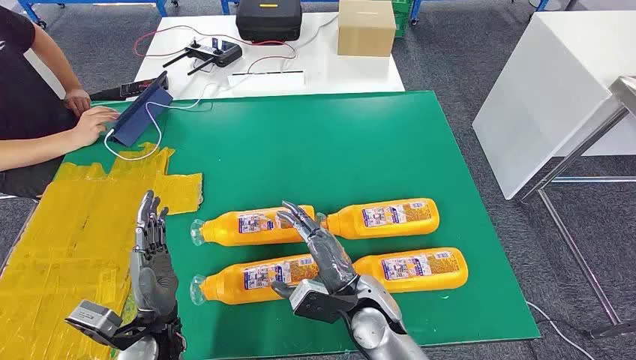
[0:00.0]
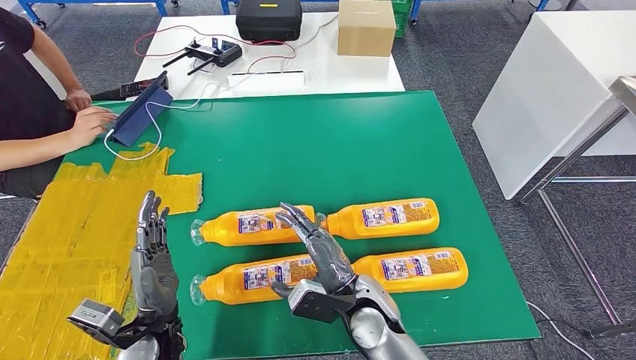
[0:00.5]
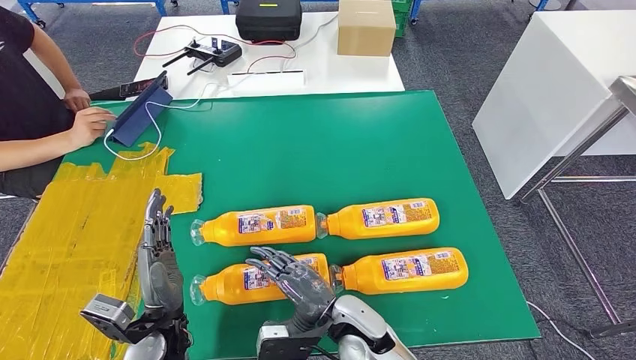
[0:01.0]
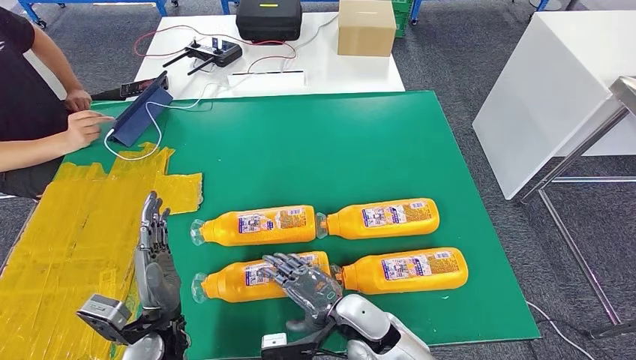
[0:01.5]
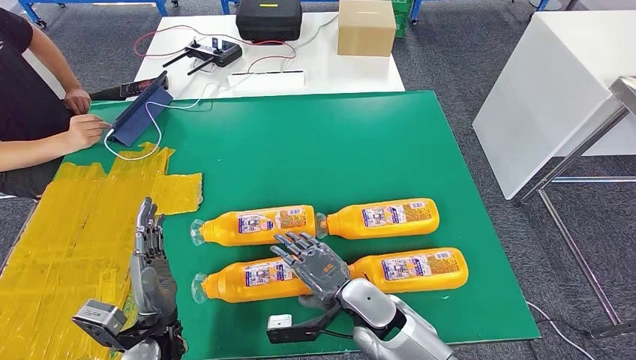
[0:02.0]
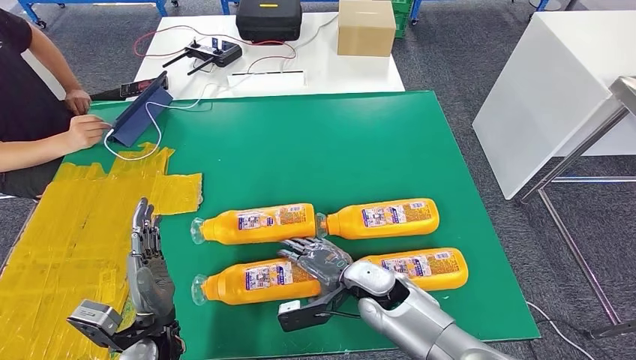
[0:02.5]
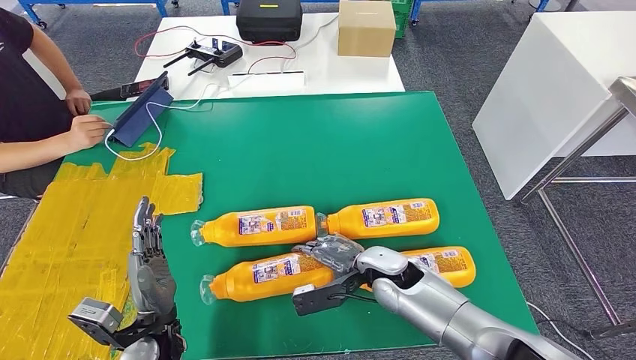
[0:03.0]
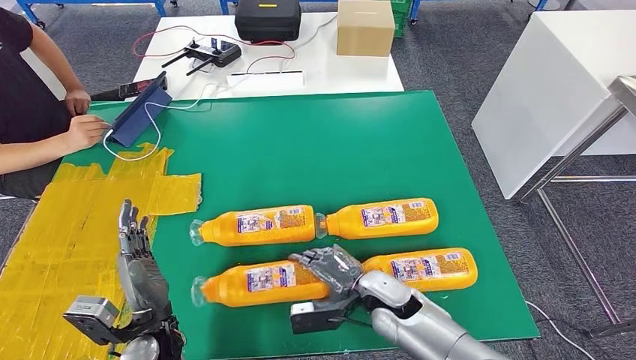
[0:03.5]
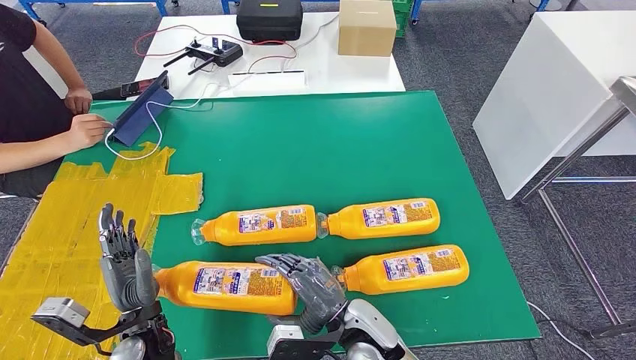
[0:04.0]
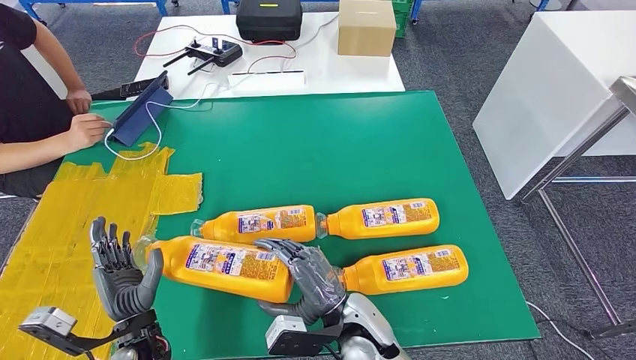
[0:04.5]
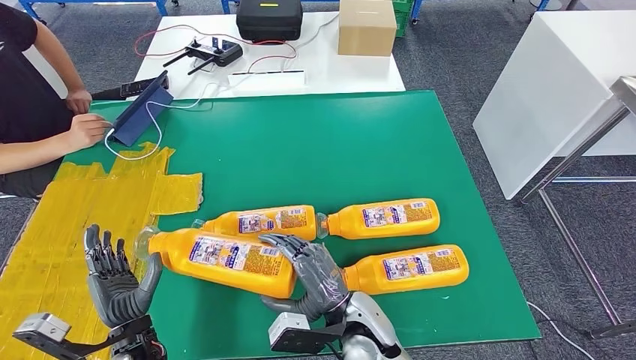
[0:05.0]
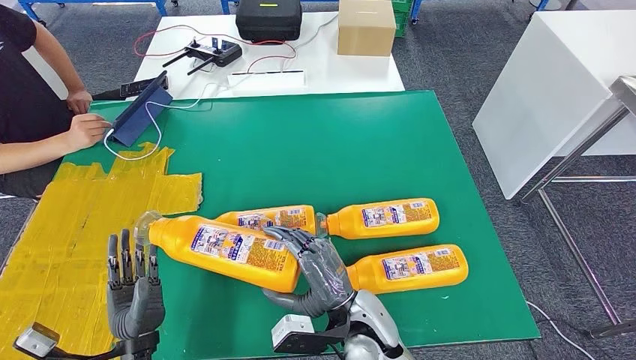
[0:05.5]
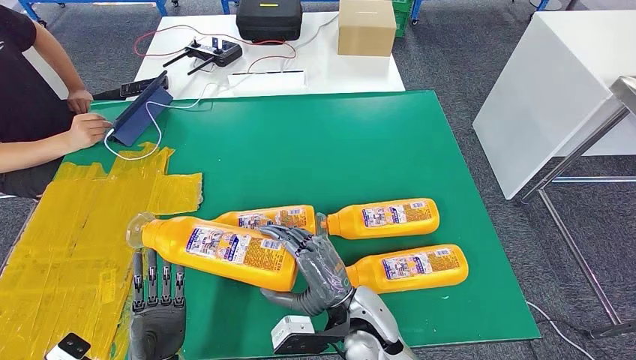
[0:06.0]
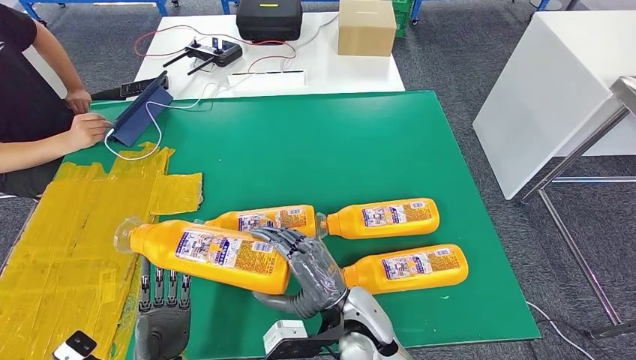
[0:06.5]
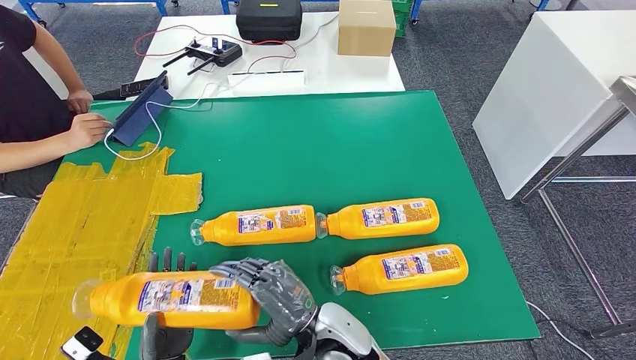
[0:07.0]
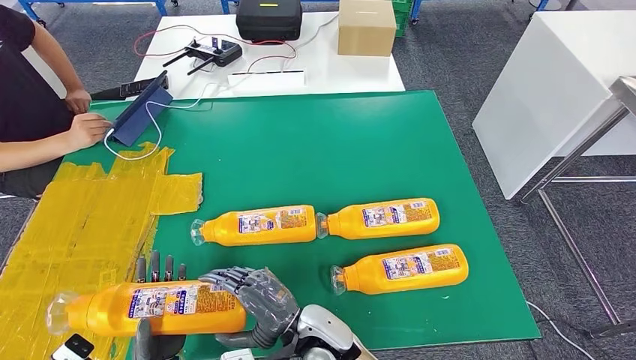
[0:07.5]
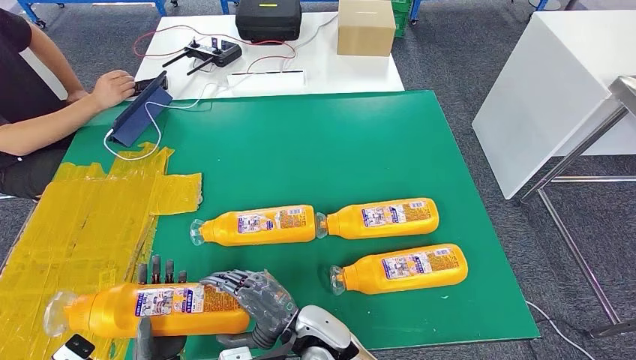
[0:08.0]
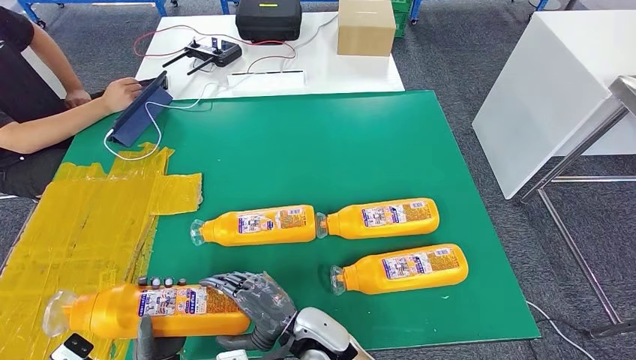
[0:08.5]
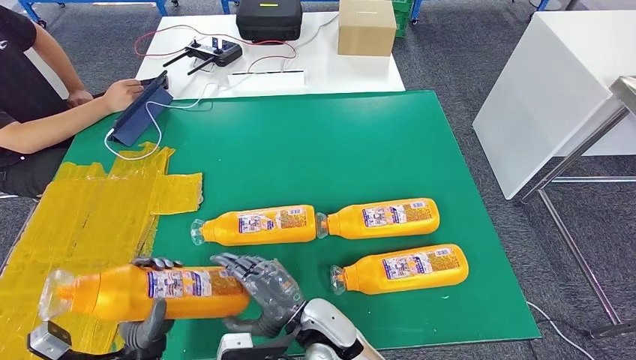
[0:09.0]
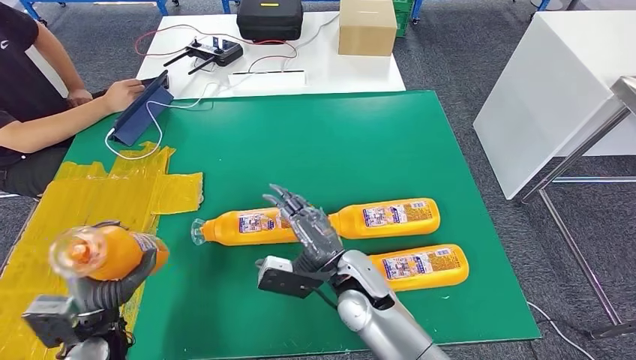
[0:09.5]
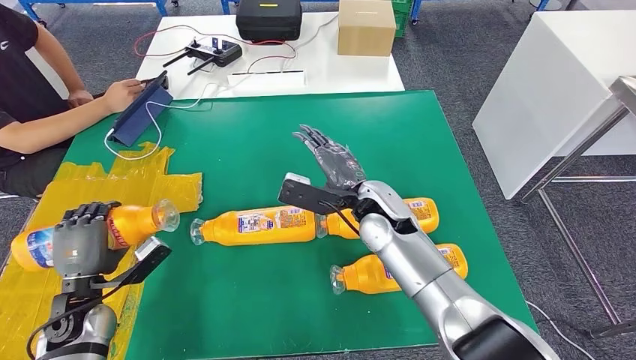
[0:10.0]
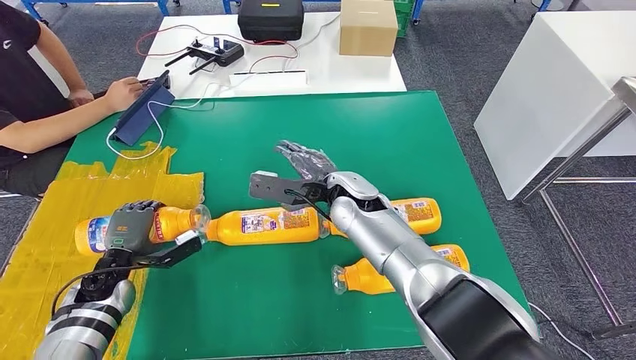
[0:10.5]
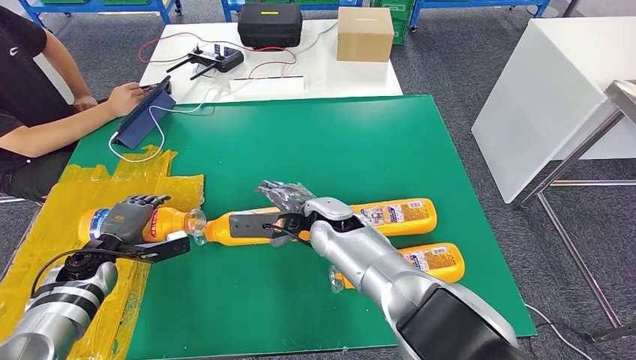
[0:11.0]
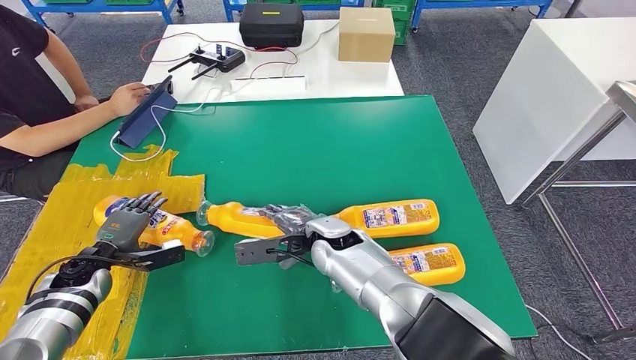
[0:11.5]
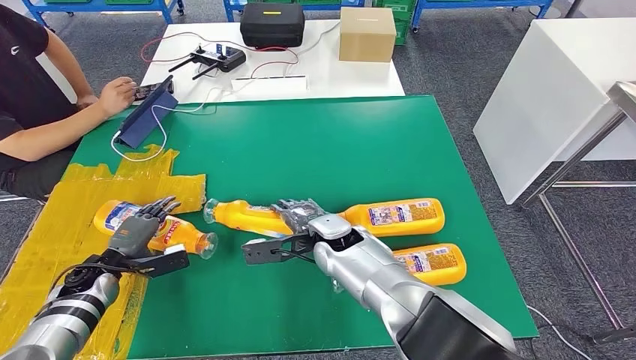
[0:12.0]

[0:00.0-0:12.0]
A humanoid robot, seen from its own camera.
Step, 0:00.0 to 0:07.0: Take the bottle from the table.
0:04.0 to 0:06.0: The left hand shifts about 5 cm backward.
0:06.0 to 0:08.0: The right hand travels to the left by approximately 5 cm.
0:08.0 to 0:10.0: The right hand moves forward, upward and to the right, approximately 25 cm; the left hand moves to the left, forward and upward, approximately 20 cm.

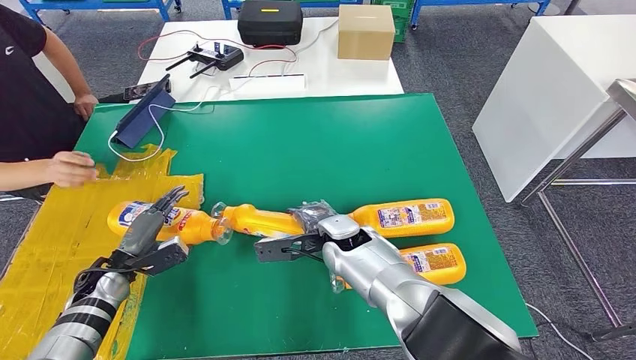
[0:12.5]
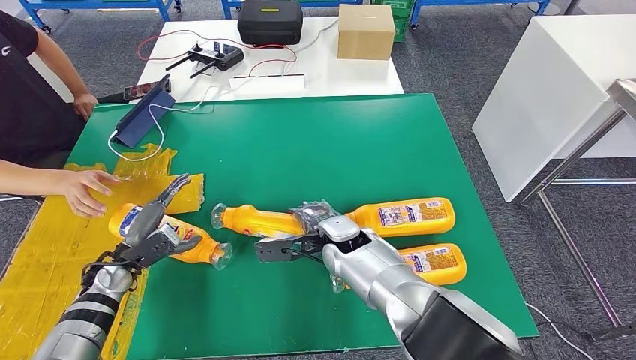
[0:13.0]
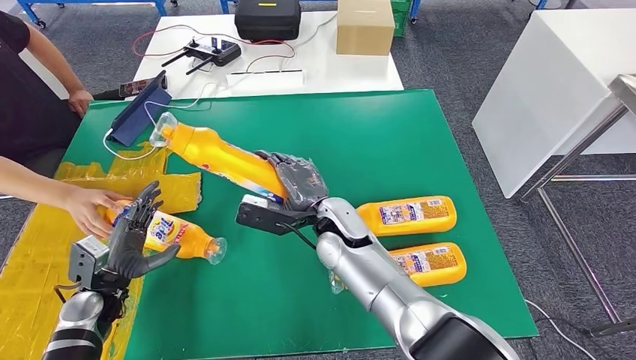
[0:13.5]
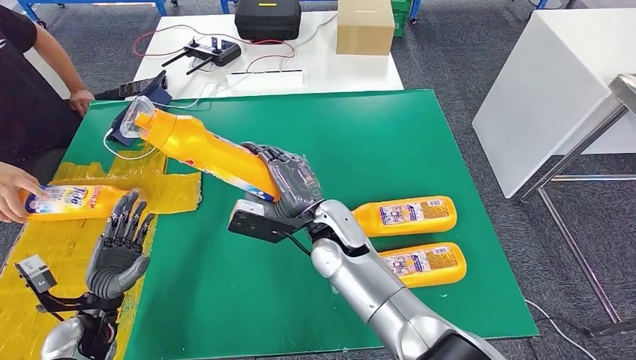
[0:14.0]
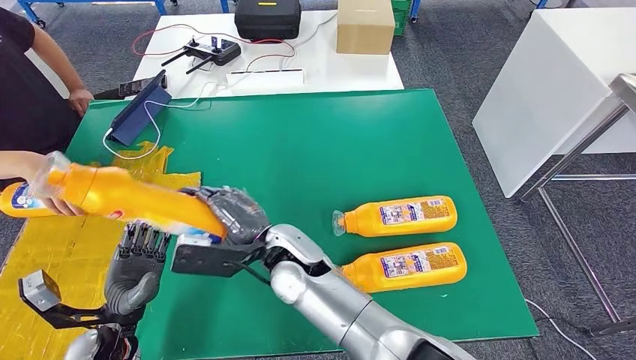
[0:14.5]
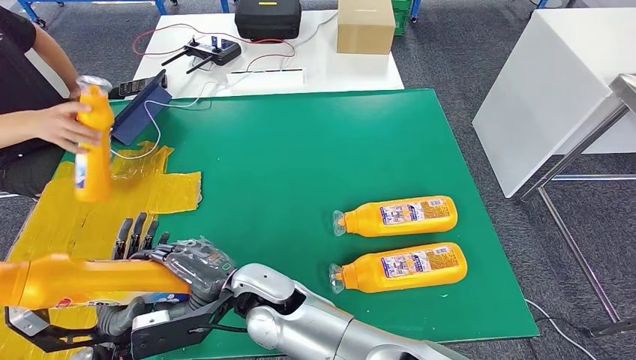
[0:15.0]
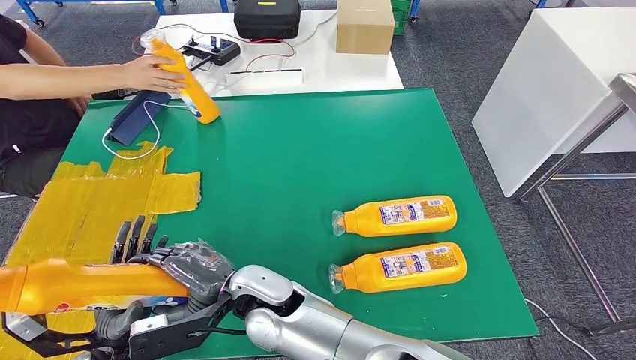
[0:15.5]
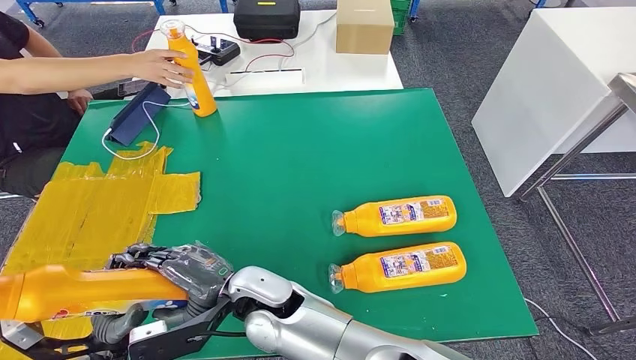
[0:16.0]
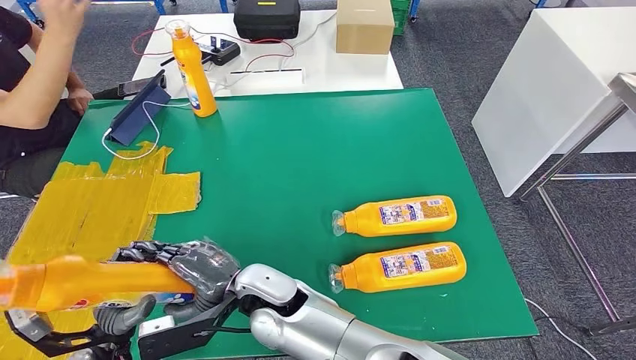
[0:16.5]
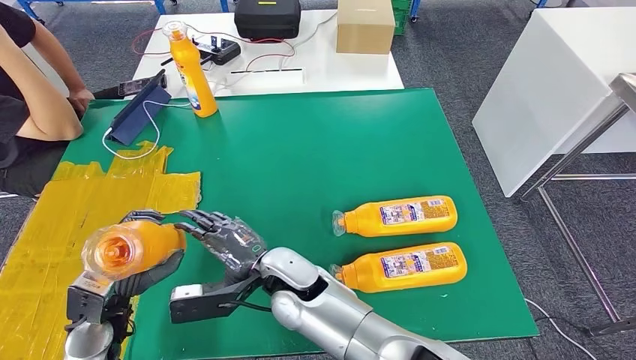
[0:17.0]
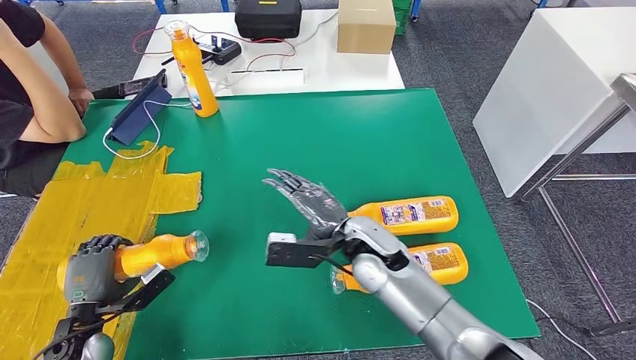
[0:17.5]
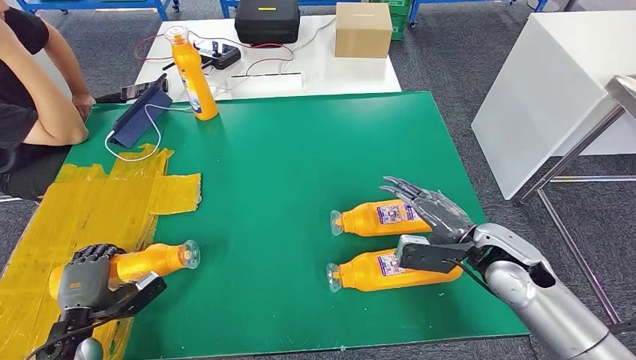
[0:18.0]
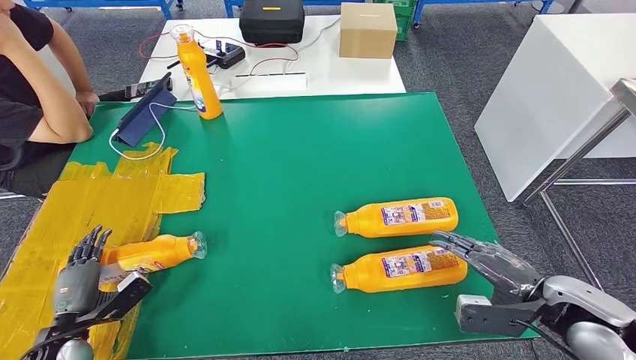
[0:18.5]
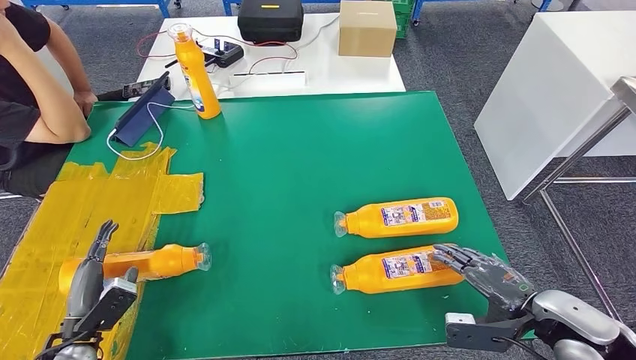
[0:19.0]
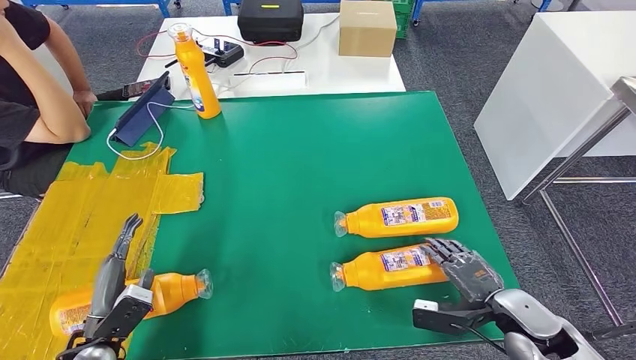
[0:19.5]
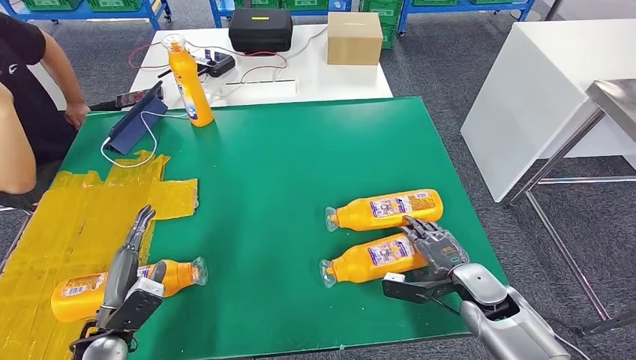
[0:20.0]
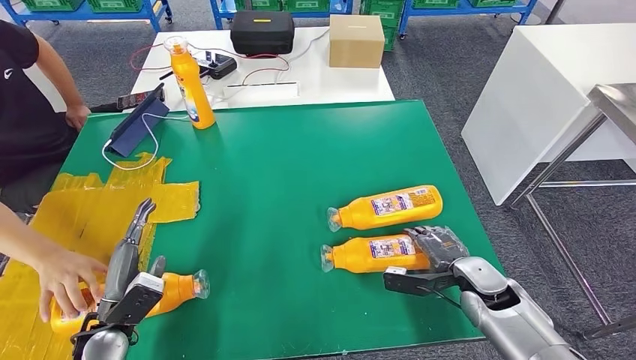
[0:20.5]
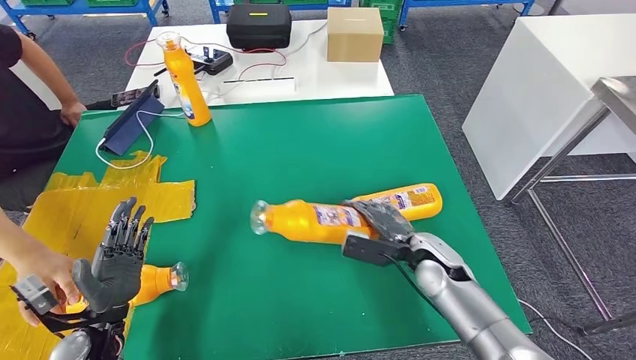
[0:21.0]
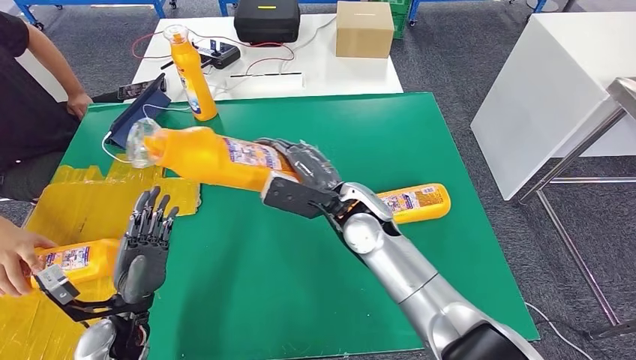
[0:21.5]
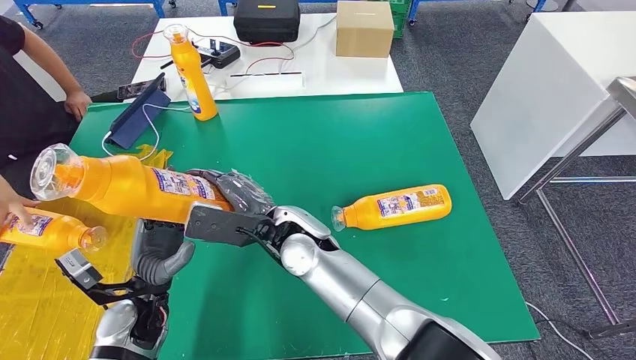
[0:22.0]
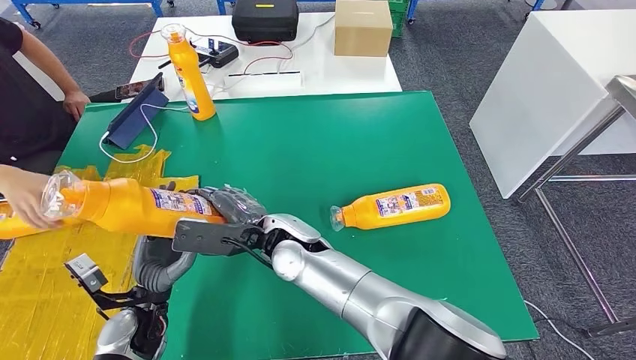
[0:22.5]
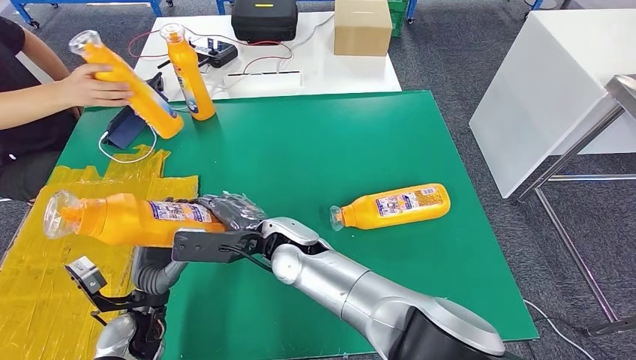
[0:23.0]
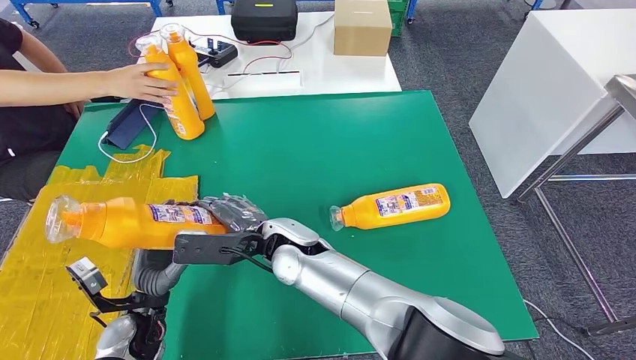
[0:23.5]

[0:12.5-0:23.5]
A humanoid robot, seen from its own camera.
Step, 0:13.5 to 0:18.0: Flip the bottle to face forward.
Step, 0:18.5 to 0:22.0: Pick up the bottle from the table.
